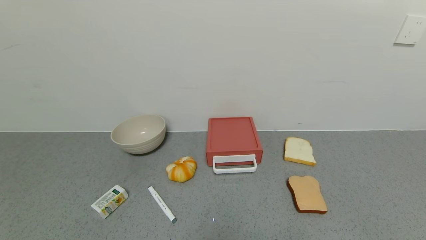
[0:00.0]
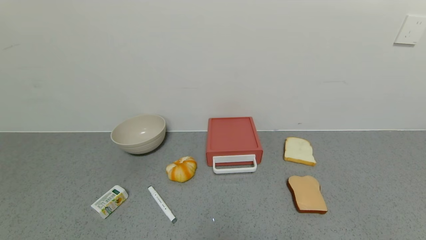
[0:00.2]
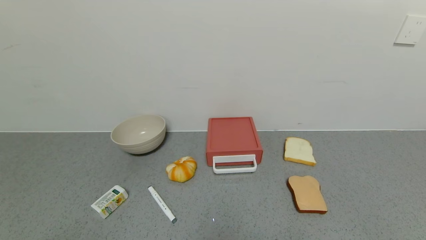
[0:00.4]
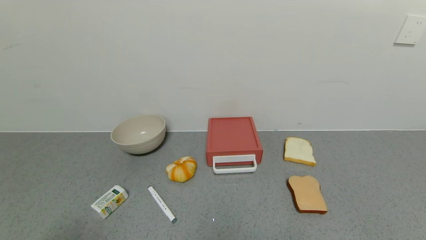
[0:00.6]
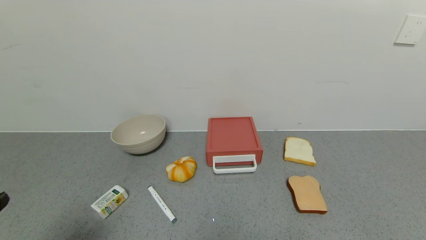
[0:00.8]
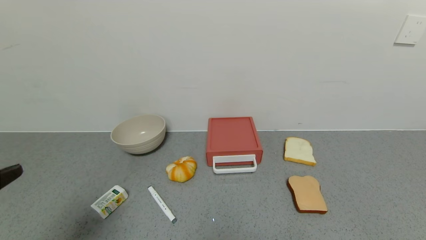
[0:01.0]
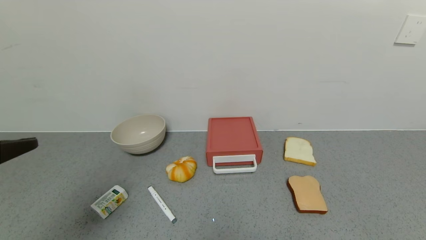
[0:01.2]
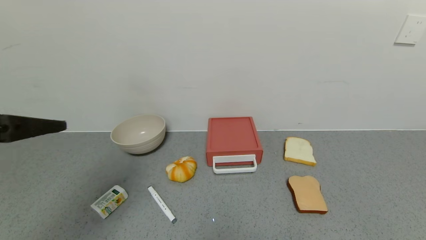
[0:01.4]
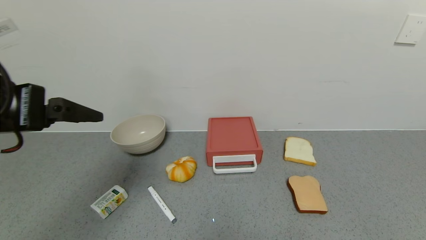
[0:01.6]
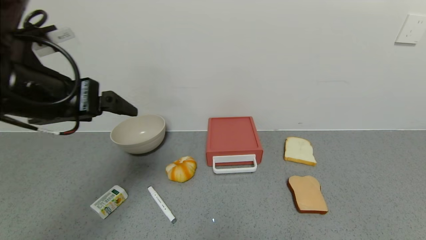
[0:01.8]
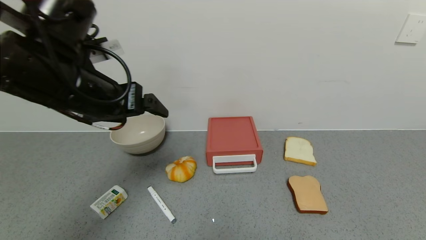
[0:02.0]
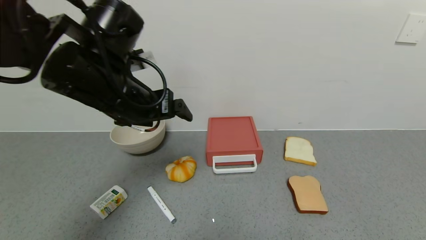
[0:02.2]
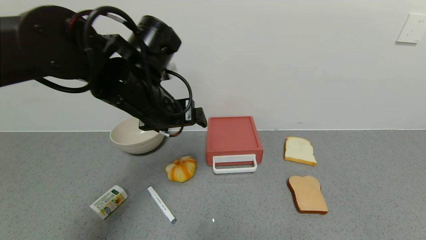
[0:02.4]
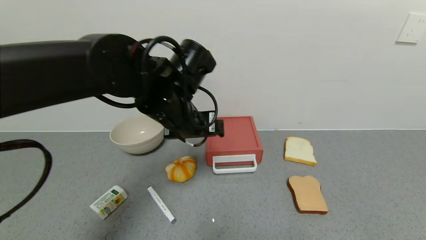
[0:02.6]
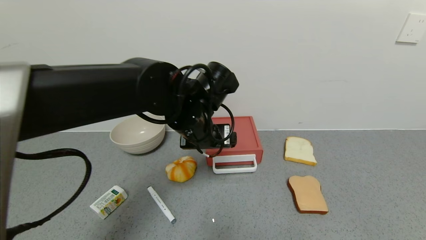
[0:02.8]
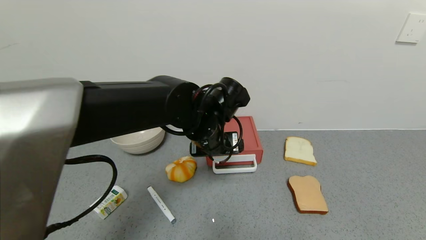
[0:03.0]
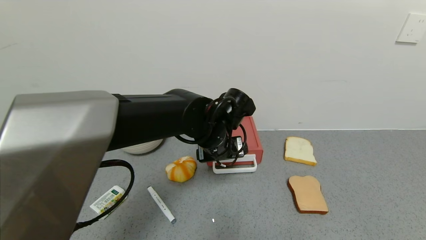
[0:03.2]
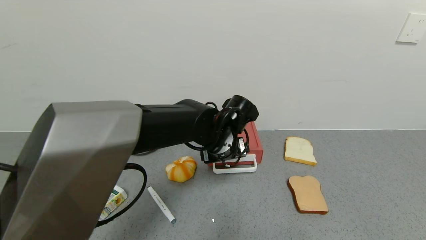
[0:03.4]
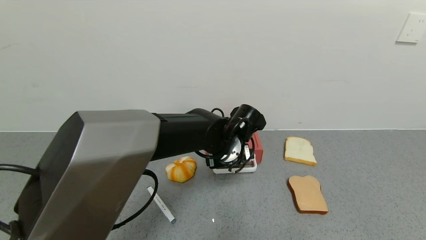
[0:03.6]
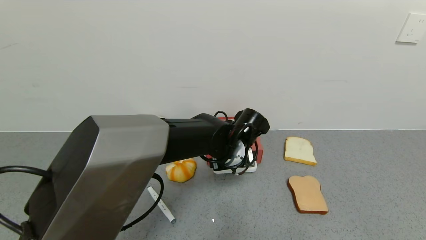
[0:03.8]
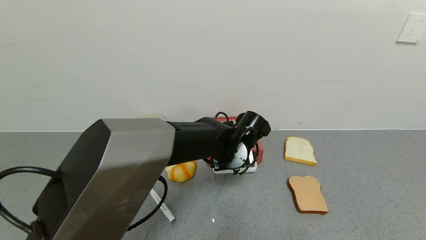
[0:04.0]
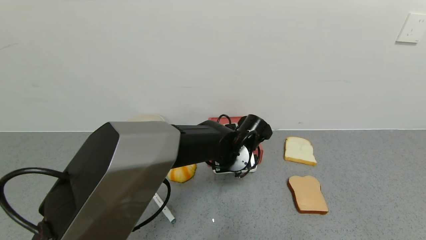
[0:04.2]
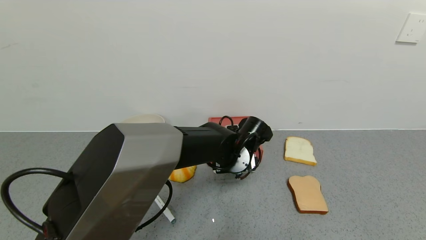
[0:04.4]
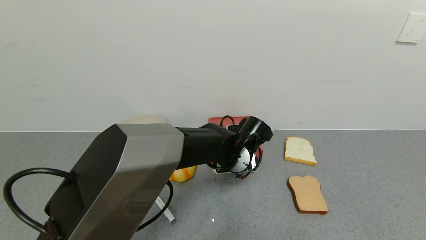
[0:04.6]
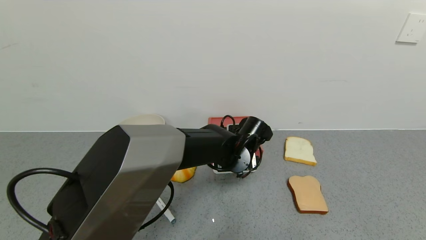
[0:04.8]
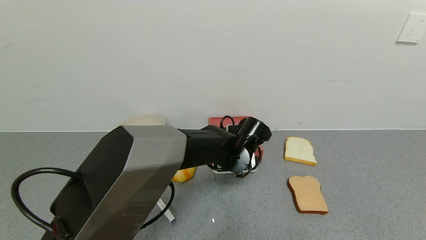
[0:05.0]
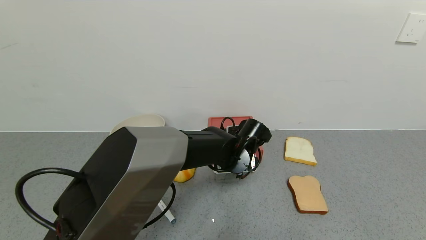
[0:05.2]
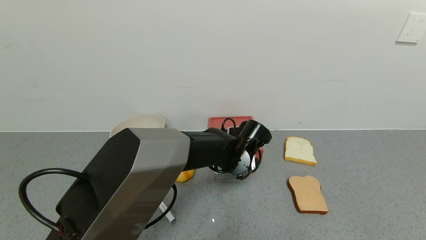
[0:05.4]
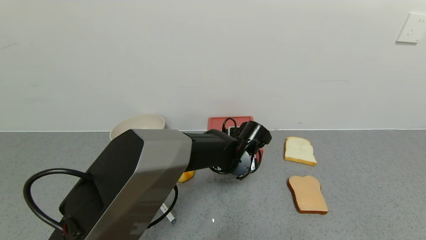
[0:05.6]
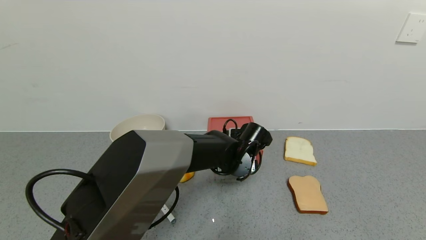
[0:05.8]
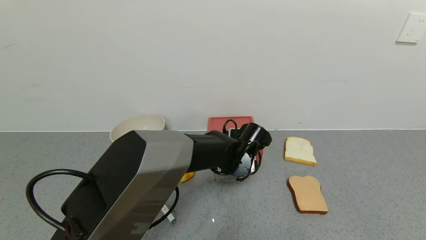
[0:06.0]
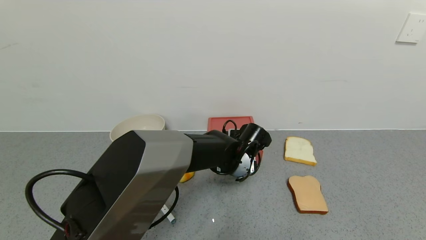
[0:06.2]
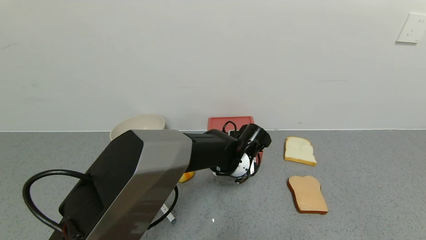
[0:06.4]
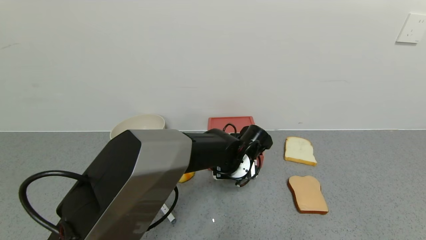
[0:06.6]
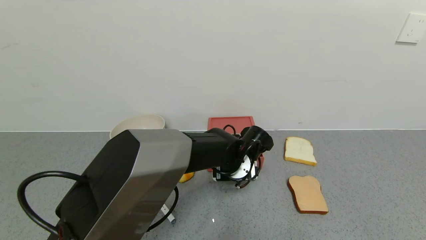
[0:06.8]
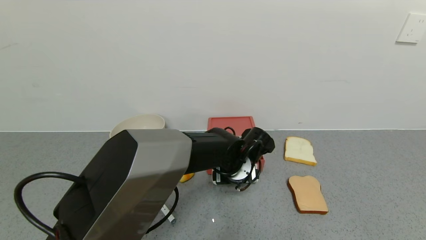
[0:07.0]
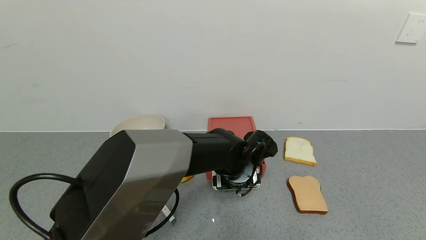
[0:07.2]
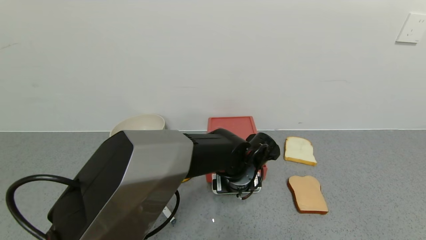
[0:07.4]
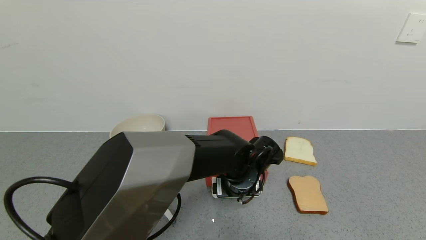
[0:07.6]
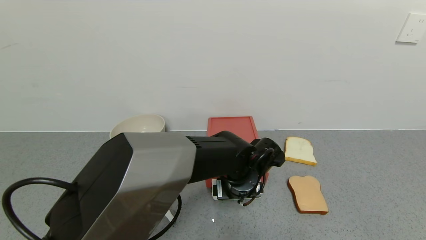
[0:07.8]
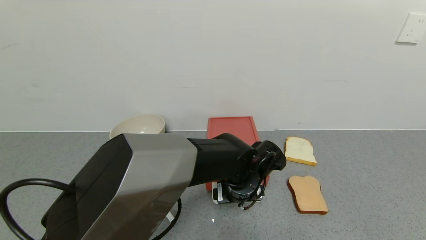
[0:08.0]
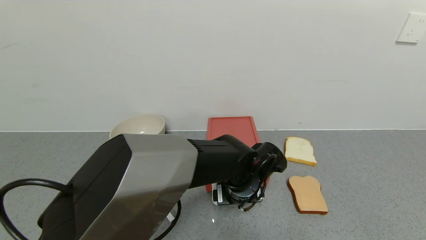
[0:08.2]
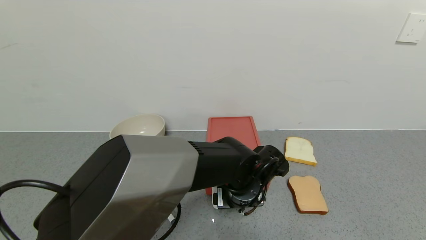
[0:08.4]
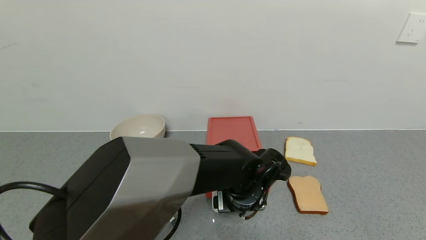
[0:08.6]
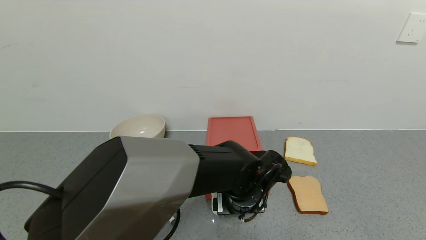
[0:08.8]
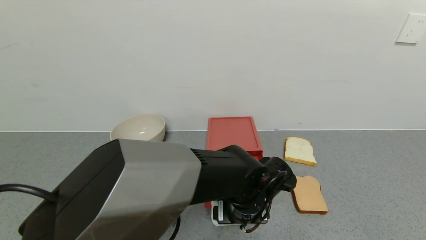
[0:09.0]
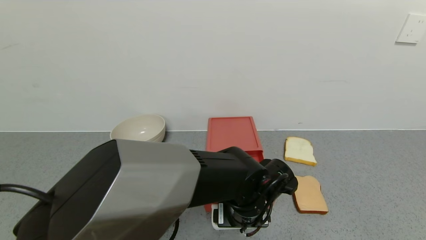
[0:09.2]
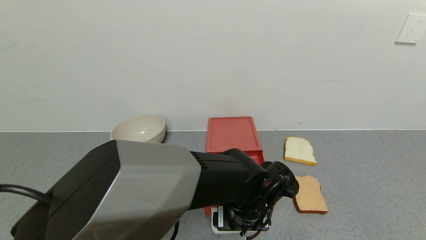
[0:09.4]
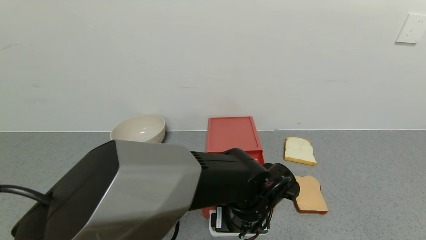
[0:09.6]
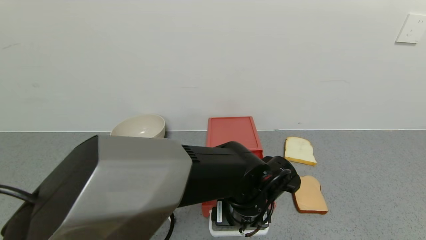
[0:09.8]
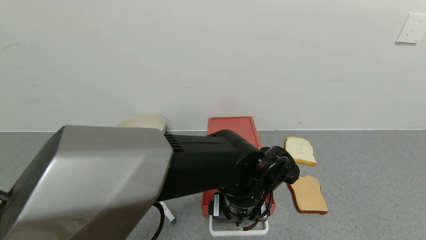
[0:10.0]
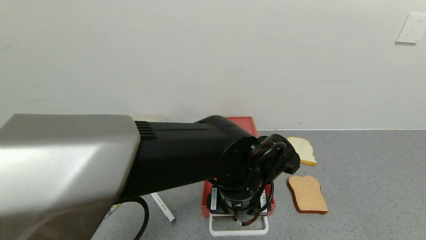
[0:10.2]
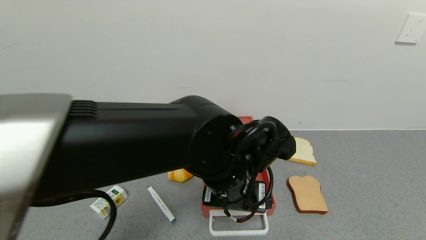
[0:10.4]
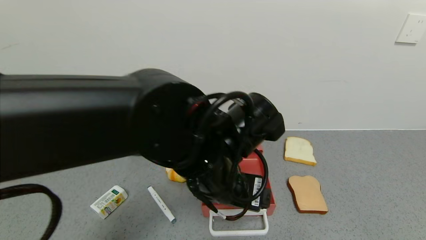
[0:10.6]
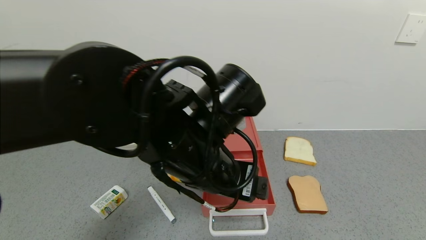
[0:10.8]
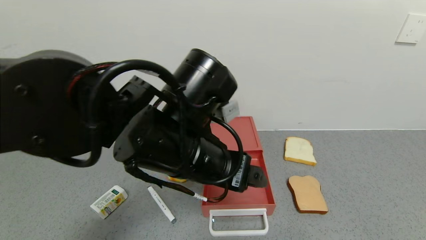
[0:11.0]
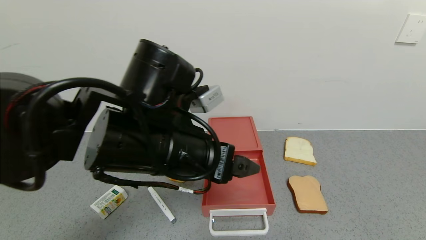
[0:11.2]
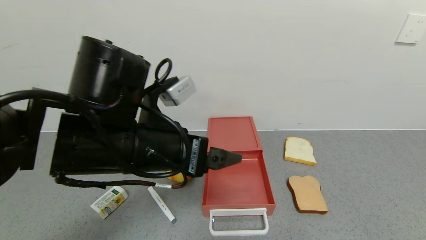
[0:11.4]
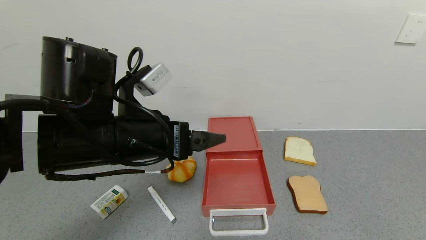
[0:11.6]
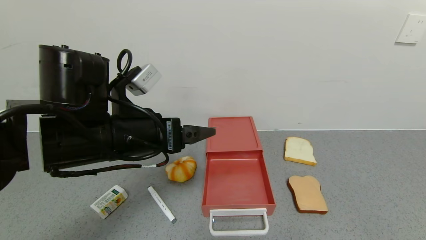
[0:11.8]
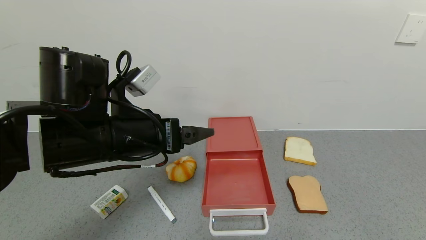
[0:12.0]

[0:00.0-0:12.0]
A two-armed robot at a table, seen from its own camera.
Task of the whole recording: use the gripper to open the drawer and close the red drawer.
Step, 0:00.0 to 0:10.6: Open the red drawer with the left gripper.
0:00.0 to 0:01.6: The left gripper moves forward and upward, some 30 cm.
0:01.6 to 0:03.0: The left gripper travels to the right, forward and downward by some 30 cm.
0:03.0 to 0:04.4: The left gripper goes some 10 cm downward and to the right.
0:04.4 to 0:06.0: There are only small adjustments of the grippers.
0:06.0 to 0:07.6: The left gripper travels backward by about 5 cm.
0:07.6 to 0:09.0: The left gripper is displaced backward by roughly 5 cm.
0:09.0 to 0:10.4: The left gripper heads upward, covering approximately 10 cm.
0:10.4 to 0:12.0: The left gripper goes approximately 15 cm to the left.

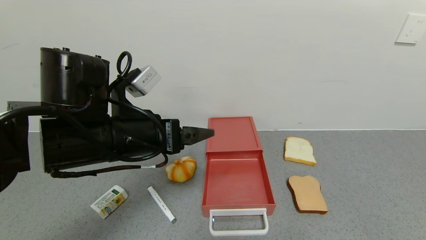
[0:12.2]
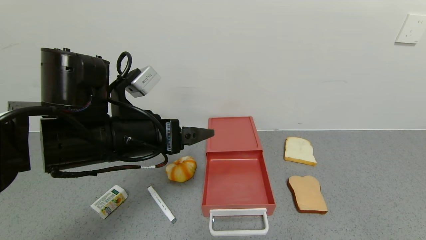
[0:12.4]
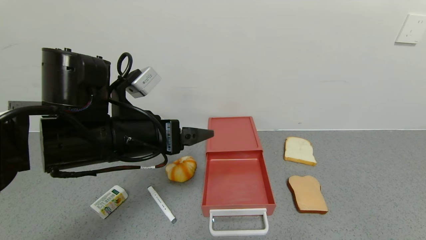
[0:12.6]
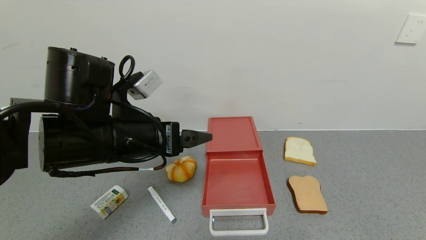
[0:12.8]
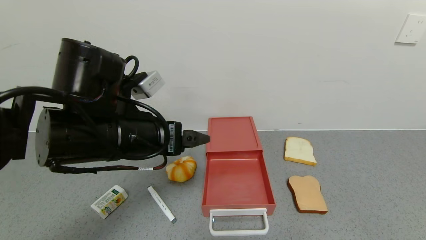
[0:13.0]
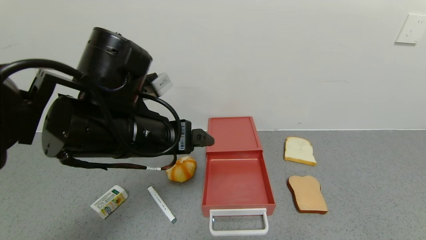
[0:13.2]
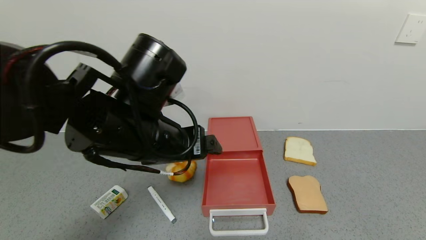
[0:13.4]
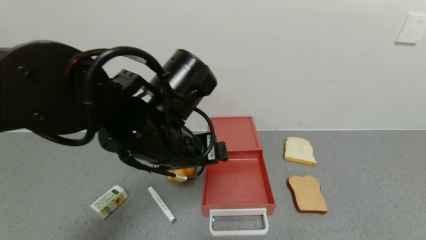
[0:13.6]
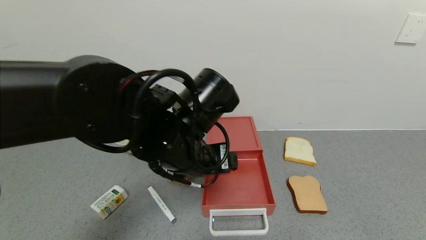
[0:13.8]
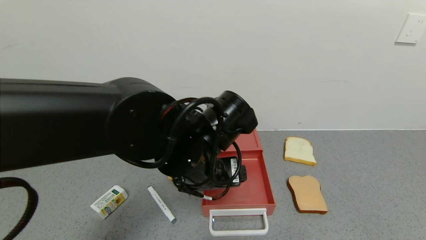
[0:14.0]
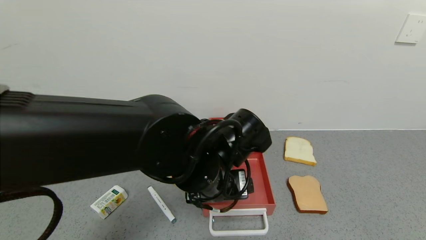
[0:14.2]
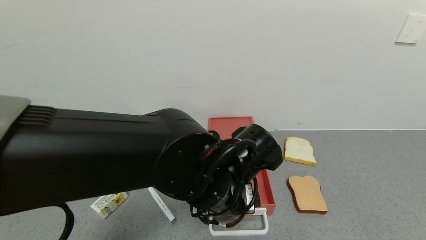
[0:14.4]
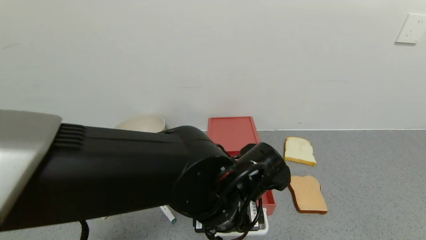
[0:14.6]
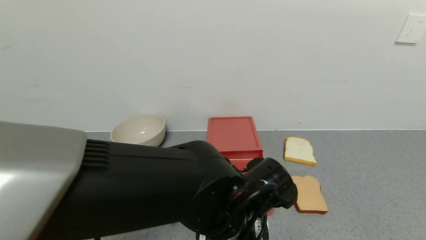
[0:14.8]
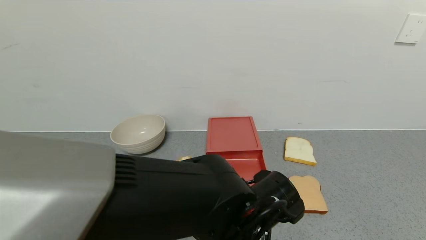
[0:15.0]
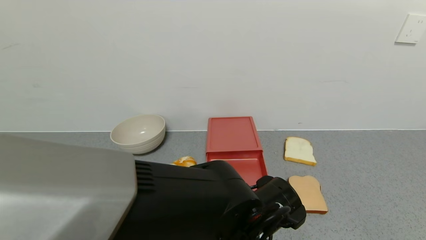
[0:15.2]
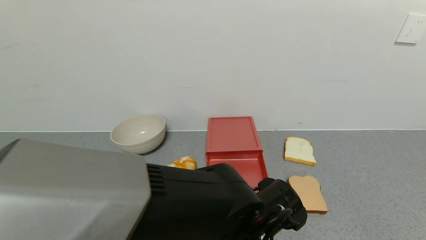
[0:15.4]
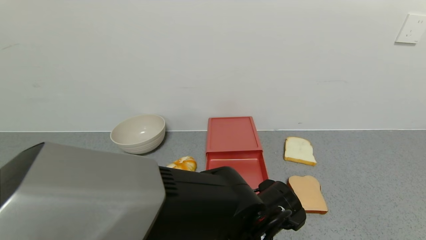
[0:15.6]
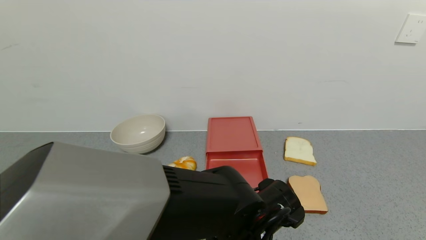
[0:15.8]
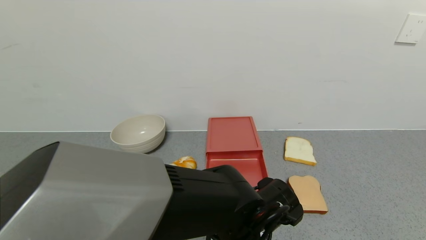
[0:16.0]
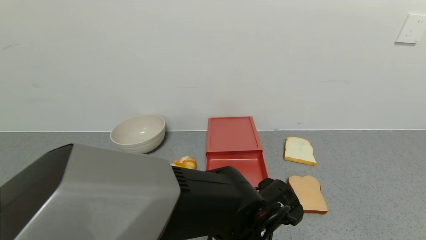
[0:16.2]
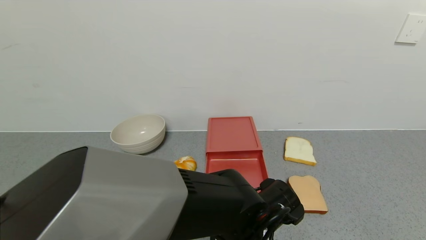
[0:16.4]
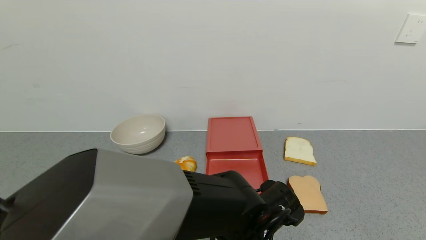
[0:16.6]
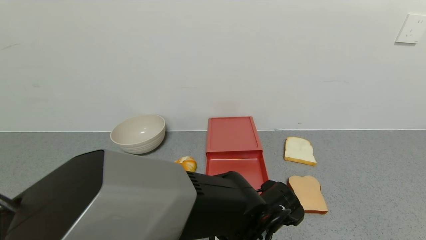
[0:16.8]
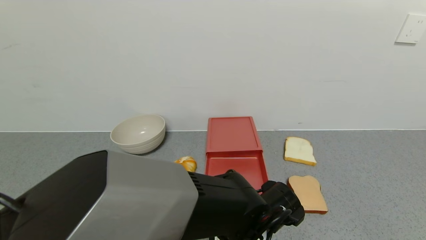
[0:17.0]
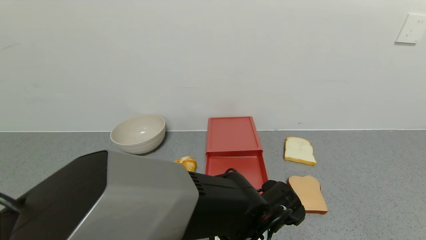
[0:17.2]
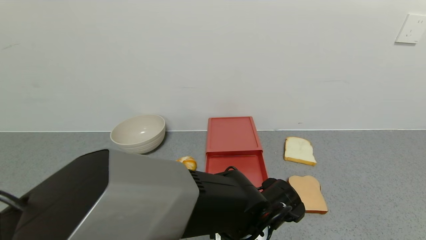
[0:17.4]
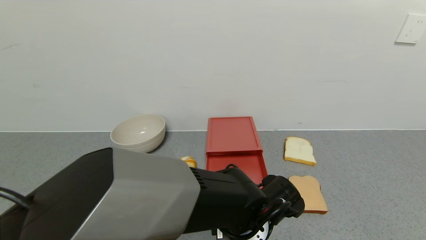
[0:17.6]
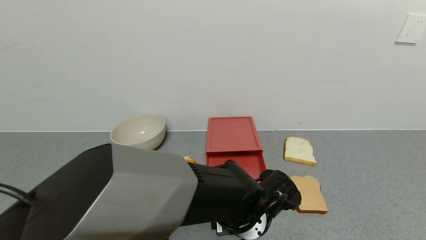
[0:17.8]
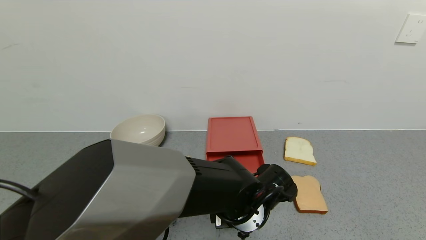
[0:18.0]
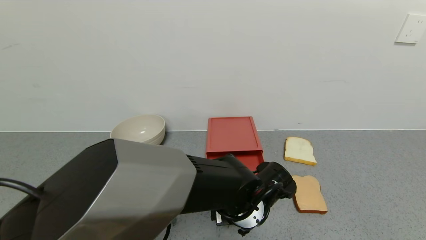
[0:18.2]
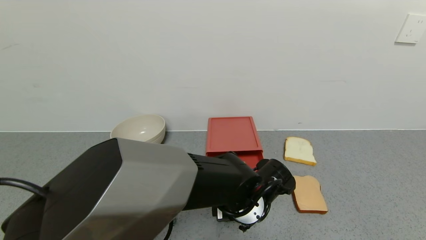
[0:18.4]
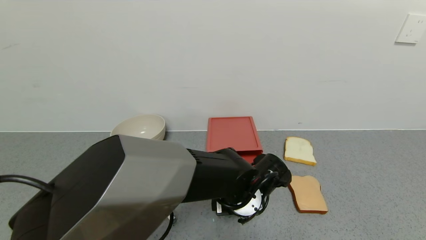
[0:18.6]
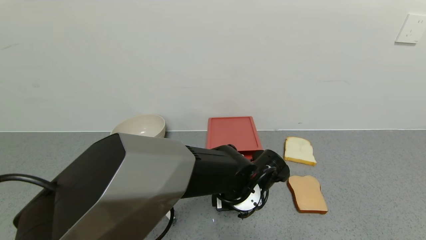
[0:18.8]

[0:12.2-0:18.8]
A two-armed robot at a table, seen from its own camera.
Task of the whole recording: use the gripper to open the drawer and close the red drawer.
0:12.2 to 0:13.8: The left gripper is displaced to the right by some 10 cm.
0:13.8 to 0:15.4: The left gripper heads downward and to the right, covering about 15 cm.
0:15.4 to 0:17.2: The grippers make only small movements.
0:17.2 to 0:18.8: The left gripper heads forward, covering about 5 cm.
